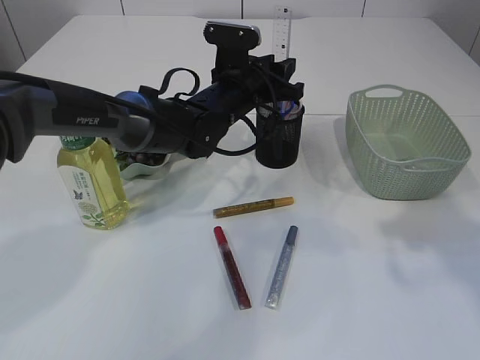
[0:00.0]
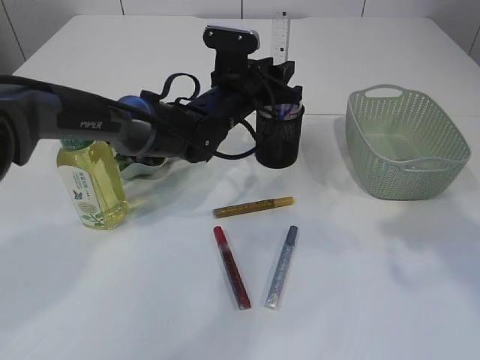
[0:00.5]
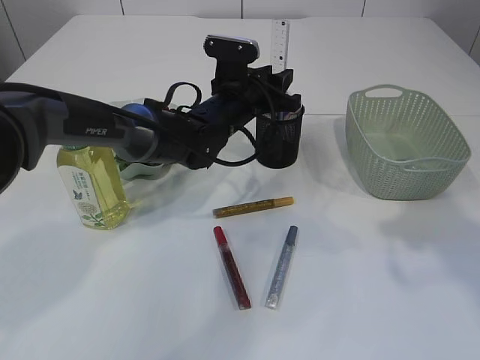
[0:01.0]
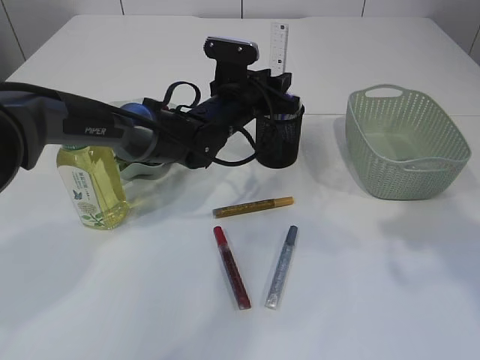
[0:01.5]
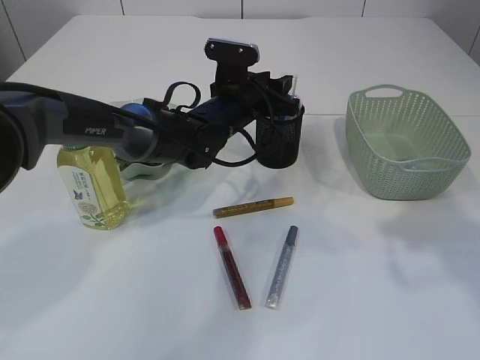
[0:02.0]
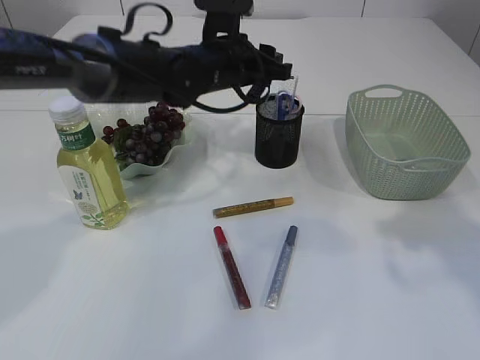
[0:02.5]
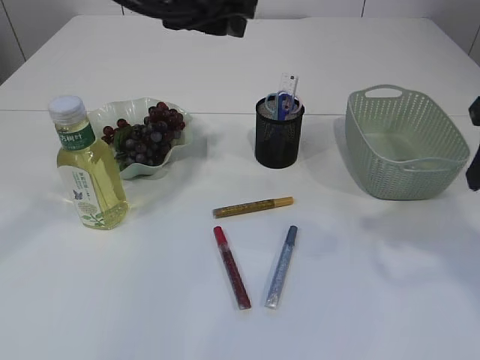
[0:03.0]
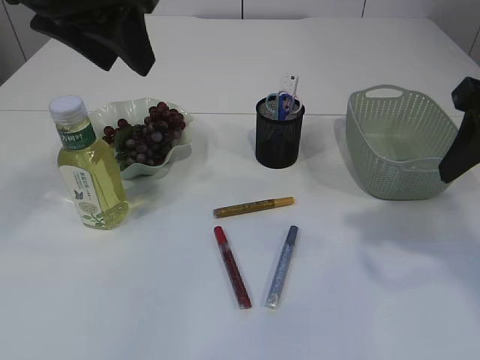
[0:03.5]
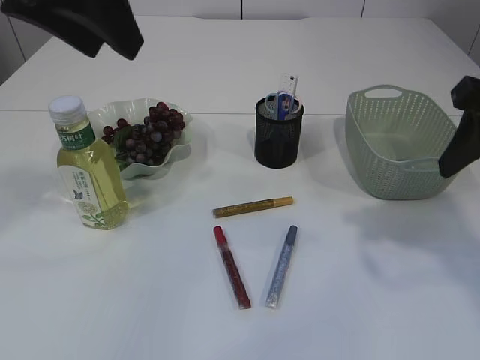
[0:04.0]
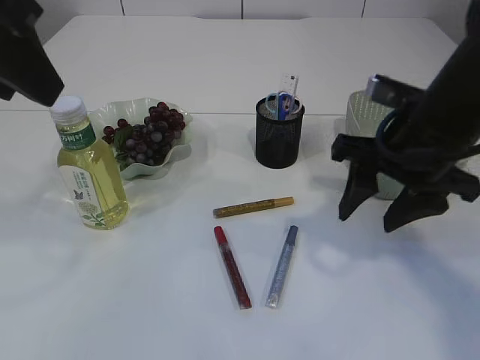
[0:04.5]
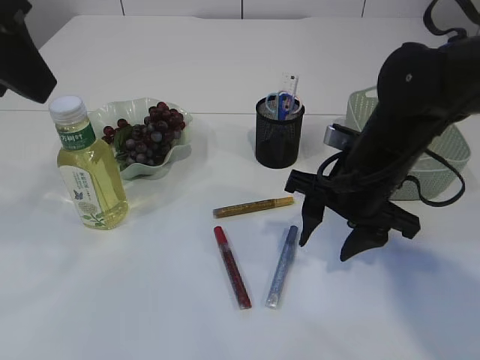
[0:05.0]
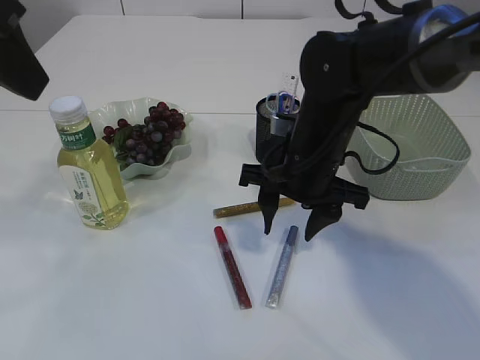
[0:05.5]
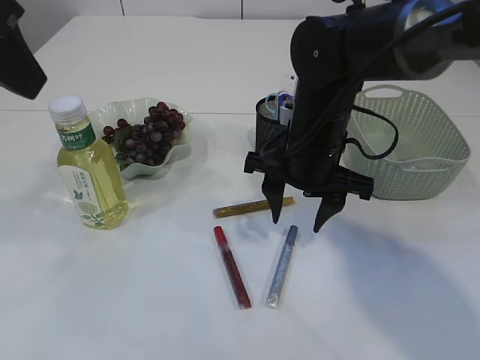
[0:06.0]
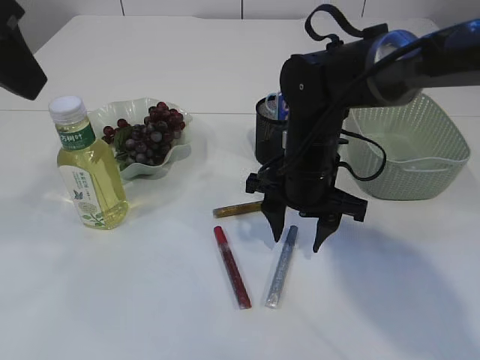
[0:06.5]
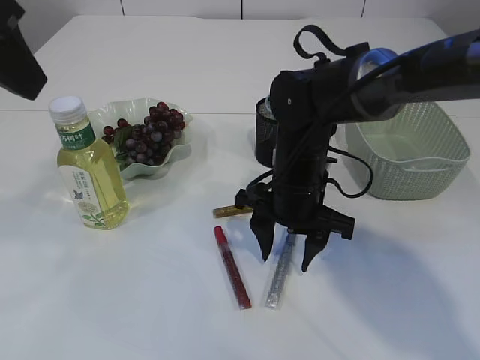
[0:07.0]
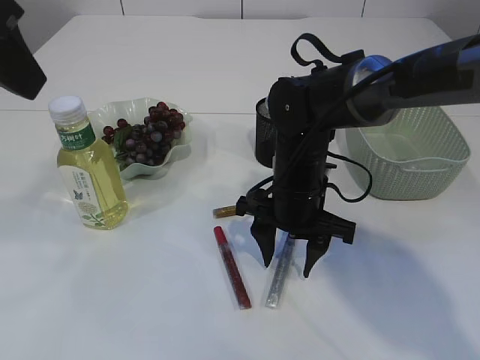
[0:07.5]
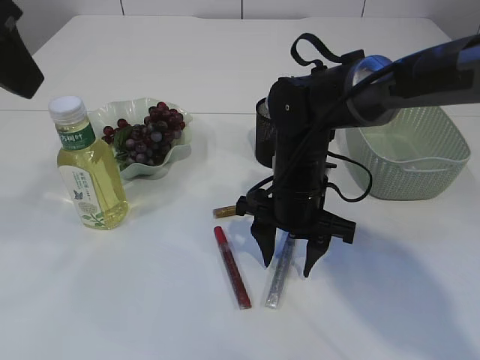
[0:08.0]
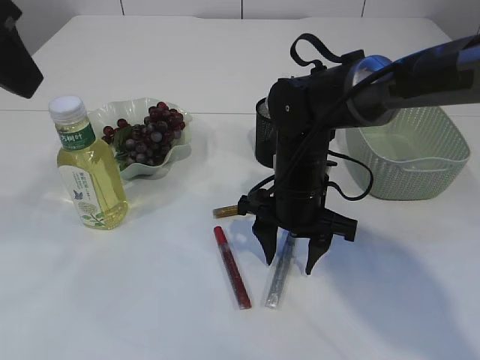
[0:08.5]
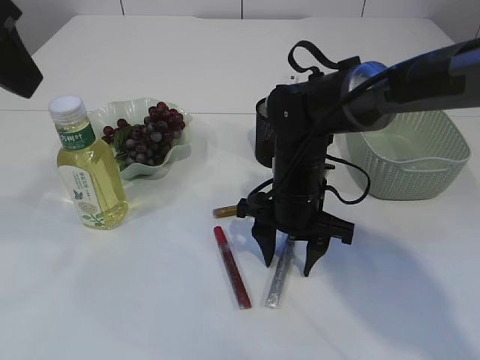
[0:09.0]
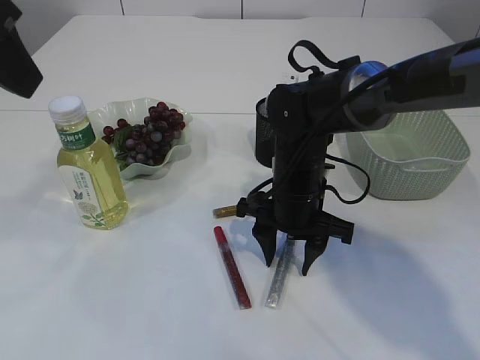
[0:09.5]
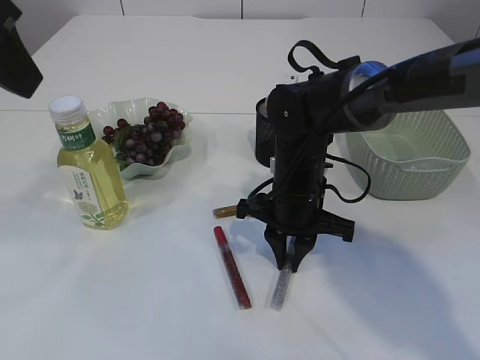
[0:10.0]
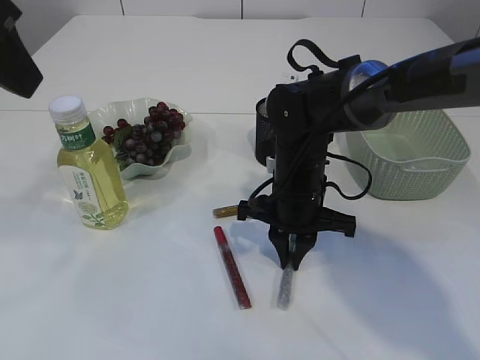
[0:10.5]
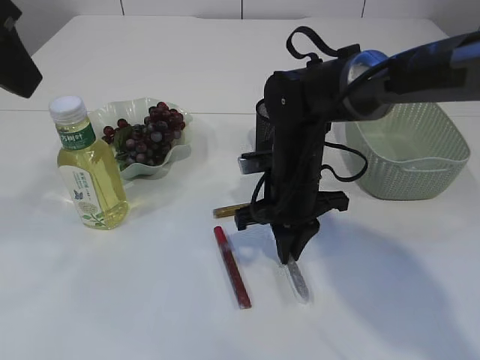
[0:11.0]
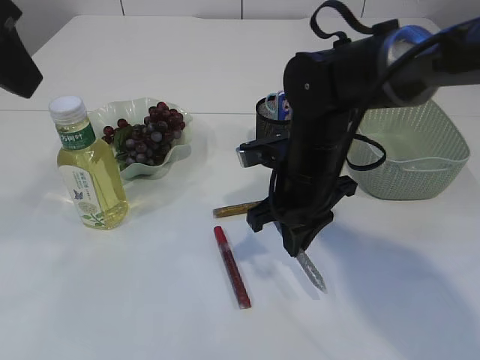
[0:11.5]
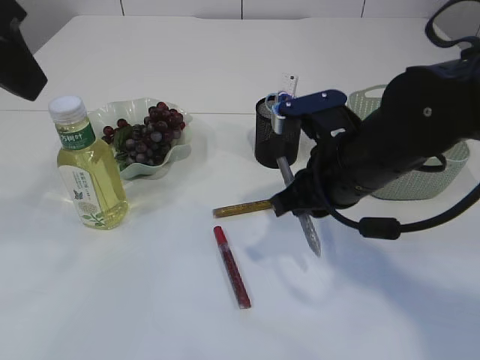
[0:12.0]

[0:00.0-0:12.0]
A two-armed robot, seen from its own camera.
Step, 0:00.0 to 0:02.5: Place the ruler into the pen holder.
Step, 0:03.0 to 0:11.5: pick up the silver glue.
0:00.0 to 0:02.0: The grippers stay close to where they were, moving slightly.
0:02.0 to 0:04.0: The left gripper is displaced upward, backward and to the left by about 35 cm.
0:04.0 to 0:06.0: The right gripper is displaced to the left, downward and forward by about 25 cm. Meanwhile the left gripper changes place by approximately 5 cm.
0:06.0 to 0:08.0: The right gripper shifts about 5 cm downward.
0:08.0 to 0:10.0: The right gripper closes.
0:10.0 to 0:12.0: The right gripper is displaced upward and backward by roughly 10 cm.

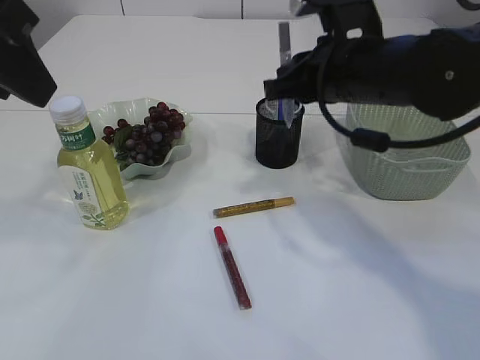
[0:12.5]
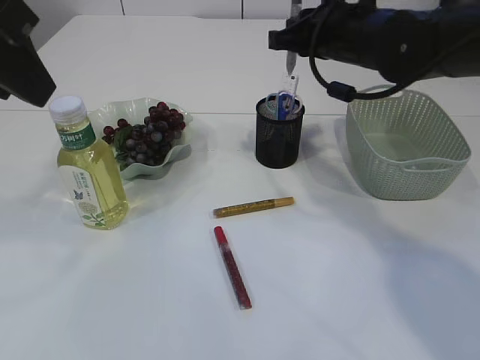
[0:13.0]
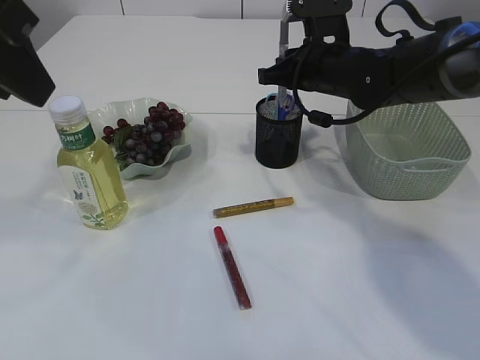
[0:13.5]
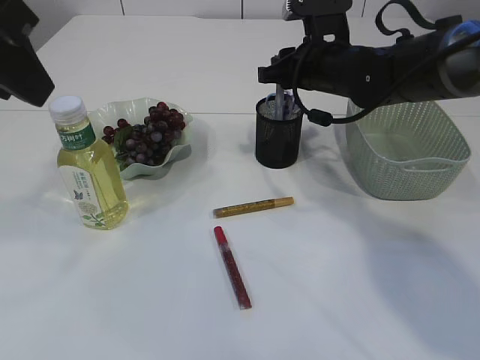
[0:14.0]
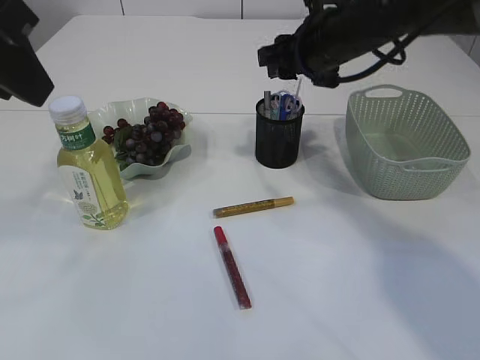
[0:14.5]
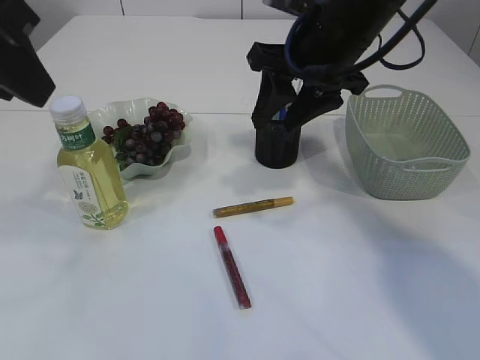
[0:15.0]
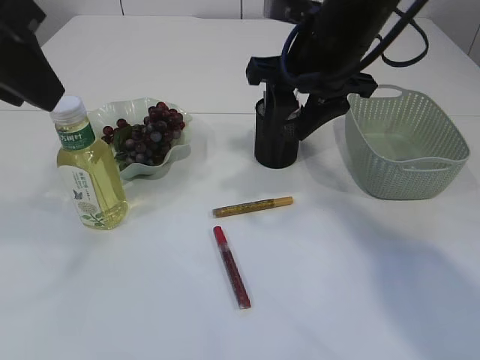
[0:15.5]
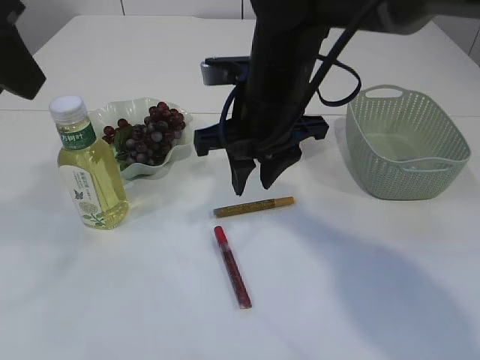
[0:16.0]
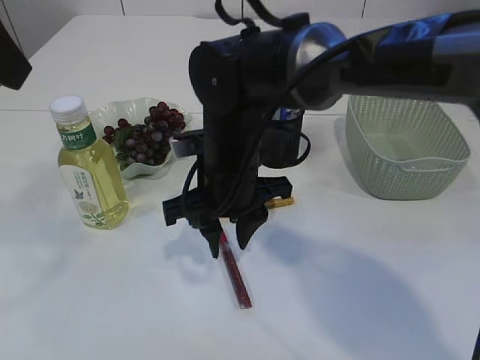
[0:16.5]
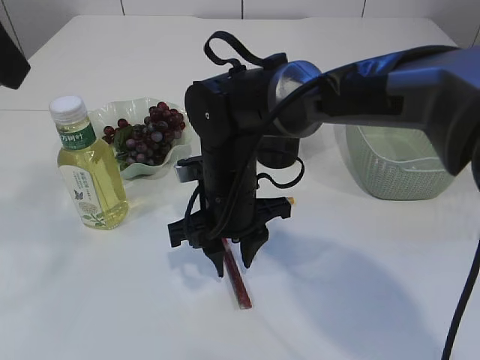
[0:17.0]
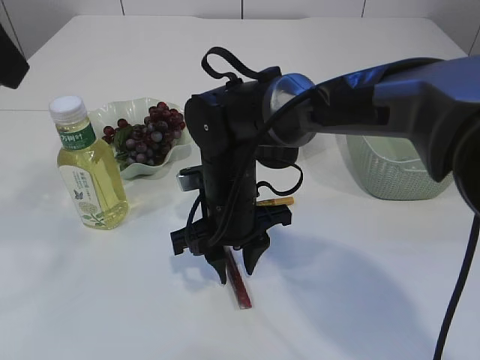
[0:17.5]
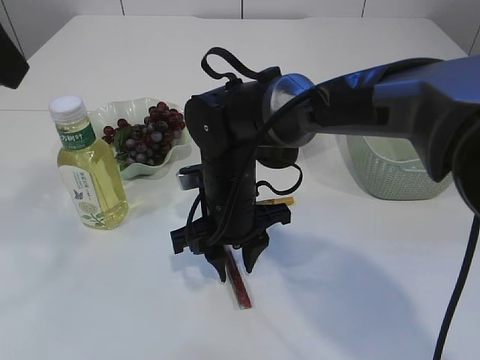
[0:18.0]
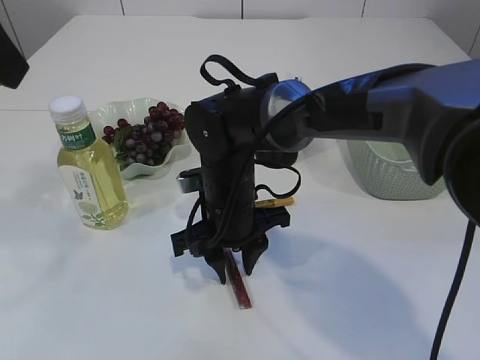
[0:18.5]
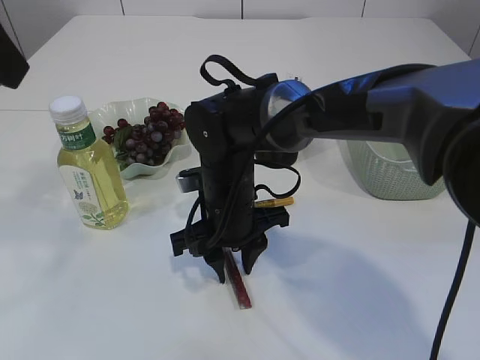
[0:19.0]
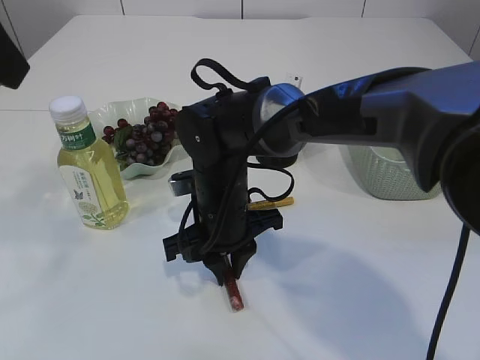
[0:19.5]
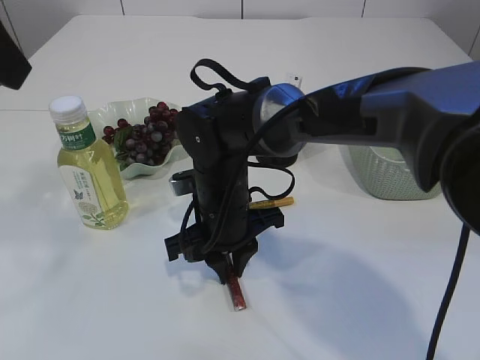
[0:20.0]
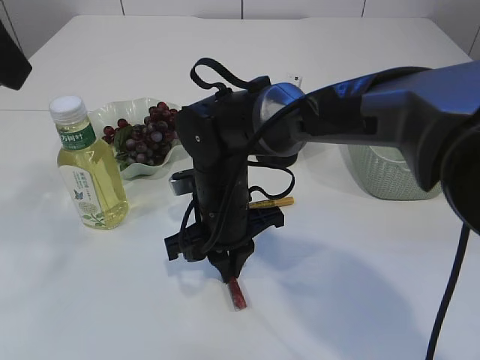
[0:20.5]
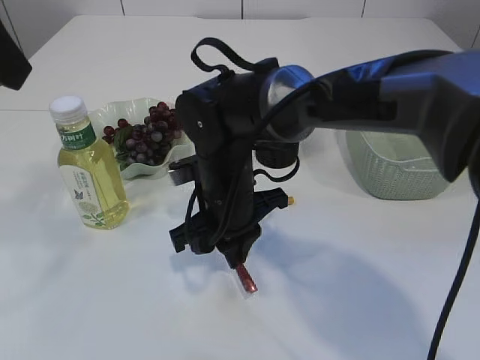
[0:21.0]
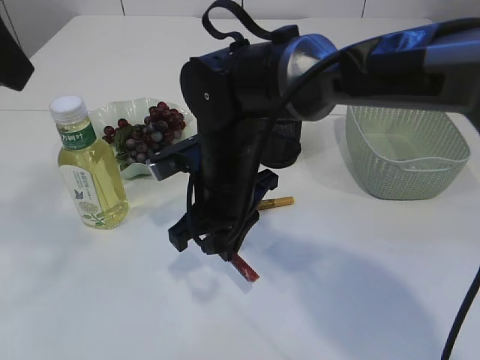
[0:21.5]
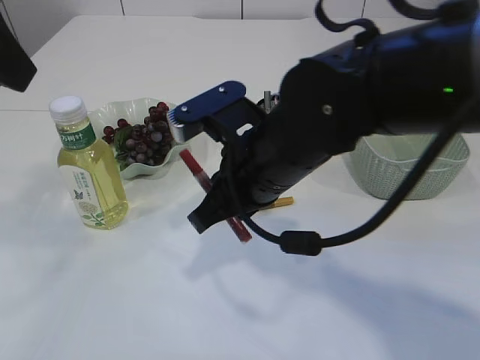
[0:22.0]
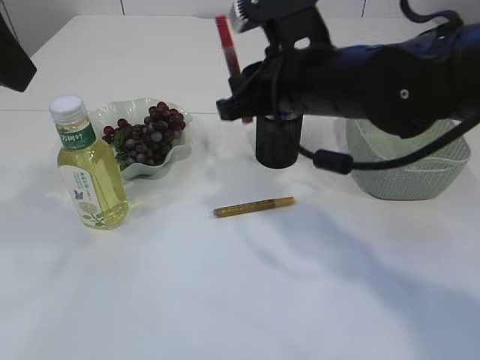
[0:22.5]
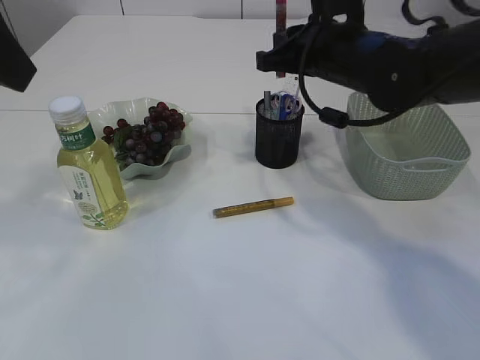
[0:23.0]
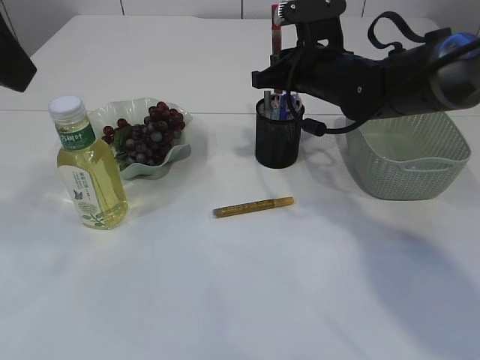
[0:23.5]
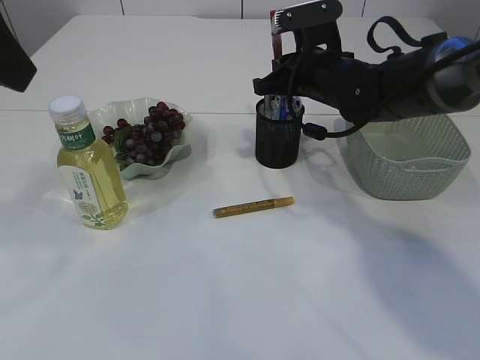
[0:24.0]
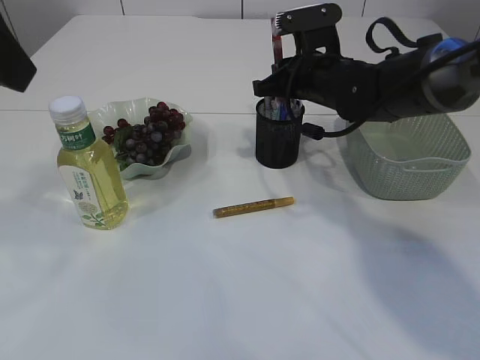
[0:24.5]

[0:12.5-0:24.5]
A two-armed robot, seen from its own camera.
Step, 0:12.5 to 0:14.5: place the silver glue into the pen holder.
Step, 0:15.0 to 0:21.5: pick up the red glue.
0:12.5 to 0:14.5: The right gripper heads forward, covering roughly 10 cm, and opens up.
0:14.5 to 0:16.5: The right gripper heads to the left, backward and downward, covering about 20 cm.
0:16.5 to 0:18.5: The right gripper heads downward, covering roughly 5 cm.
0:18.5 to 0:20.5: The right gripper closes up.
0:20.5 to 0:22.5: The right gripper is displaced upward and to the right by roughly 15 cm.
0:22.5 to 0:24.5: The right gripper goes approximately 15 cm forward and downward.

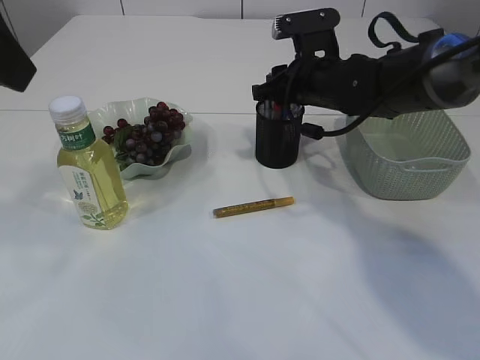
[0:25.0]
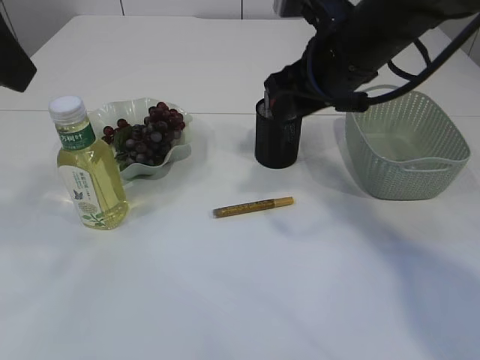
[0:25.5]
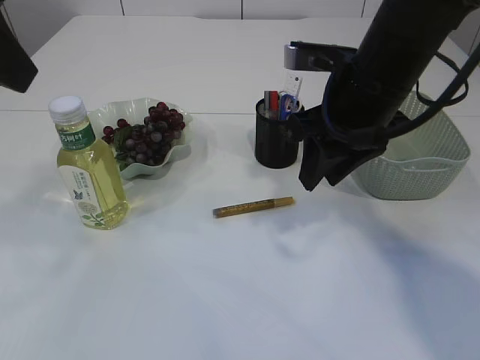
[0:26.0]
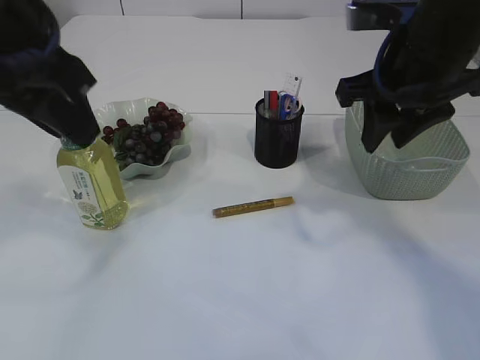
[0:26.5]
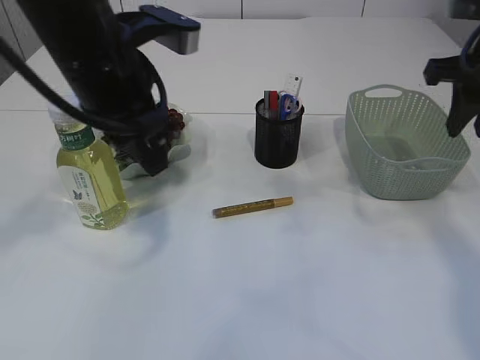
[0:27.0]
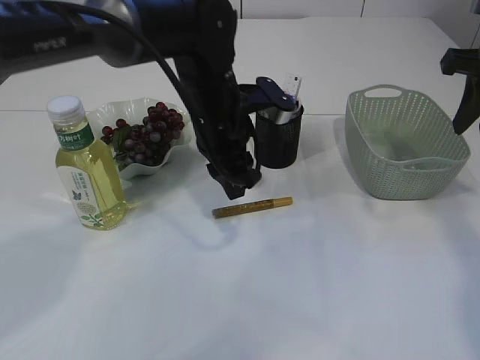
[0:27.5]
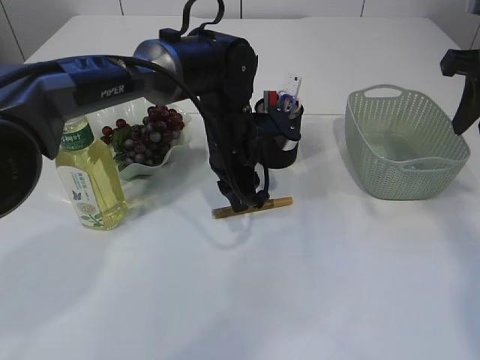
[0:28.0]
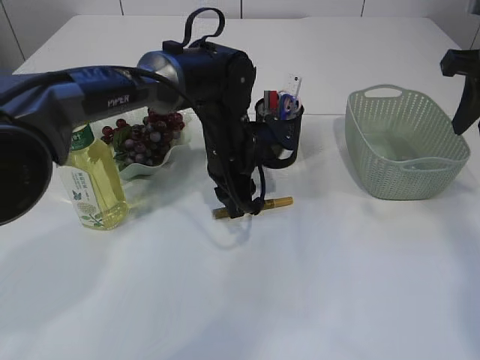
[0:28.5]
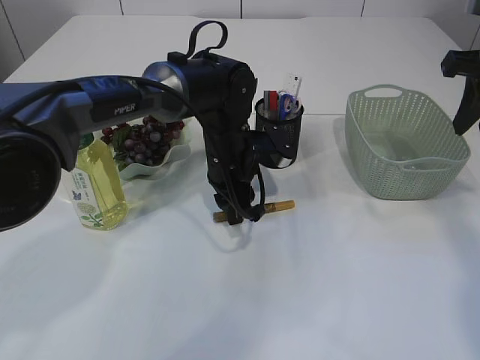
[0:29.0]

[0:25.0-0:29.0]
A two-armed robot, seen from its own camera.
0:25.0 to 0:27.0: The right gripper shifts about 20 cm to the right, backward and upward, while the left gripper goes some 15 cm downward, forward and to the right.
0:27.0 to 0:29.0: The left gripper travels downward, forward and to the right by some 25 cm.
